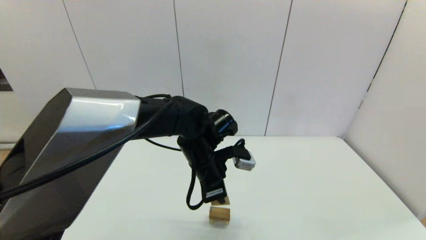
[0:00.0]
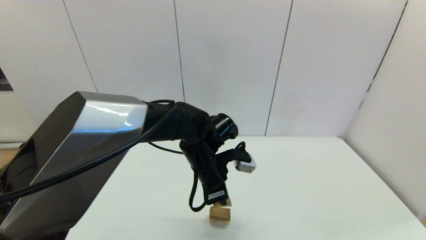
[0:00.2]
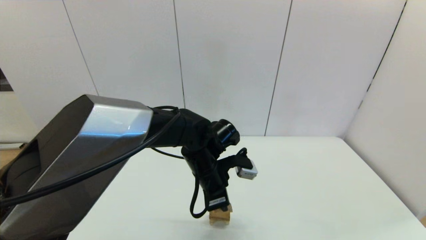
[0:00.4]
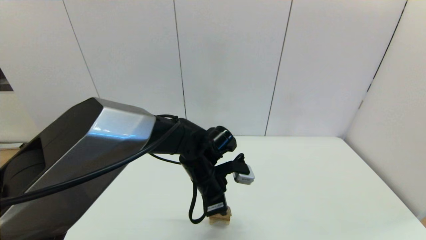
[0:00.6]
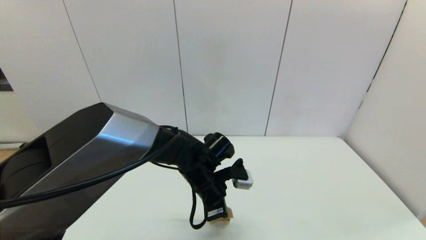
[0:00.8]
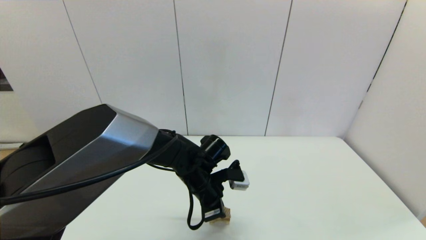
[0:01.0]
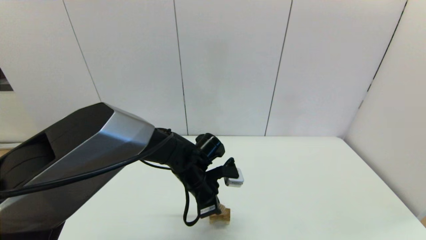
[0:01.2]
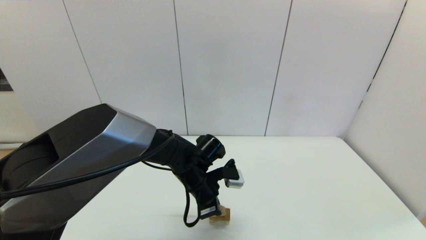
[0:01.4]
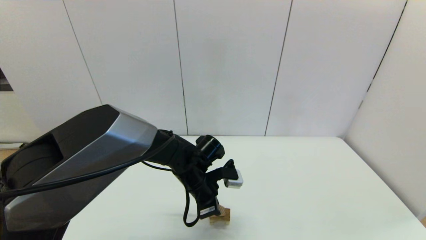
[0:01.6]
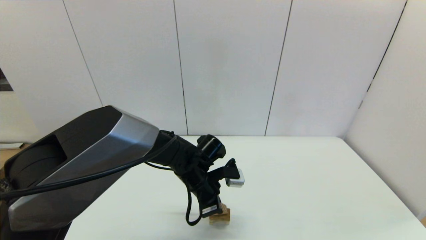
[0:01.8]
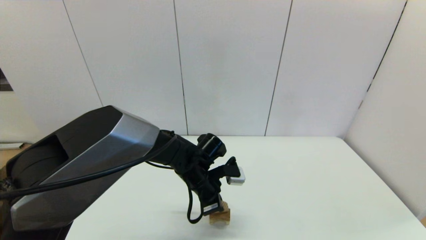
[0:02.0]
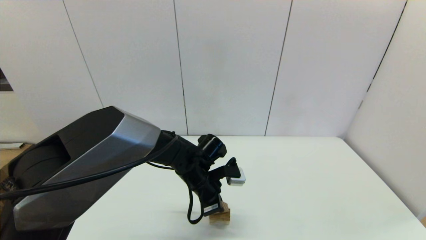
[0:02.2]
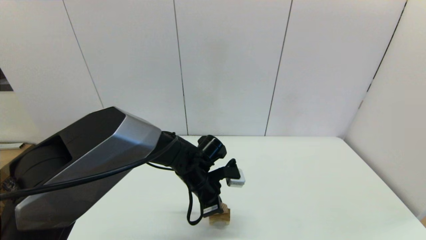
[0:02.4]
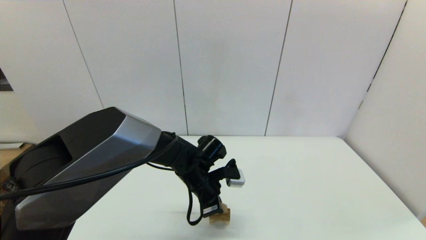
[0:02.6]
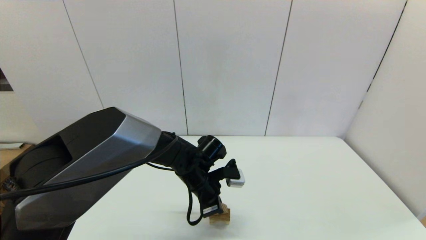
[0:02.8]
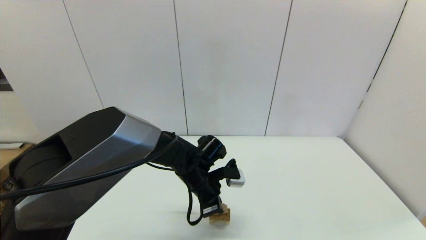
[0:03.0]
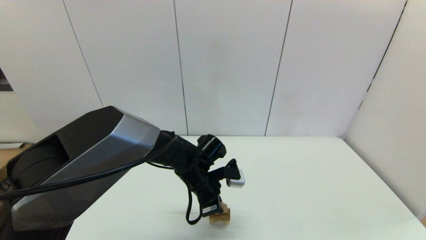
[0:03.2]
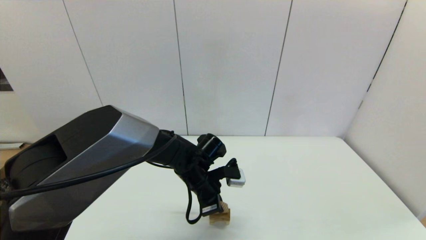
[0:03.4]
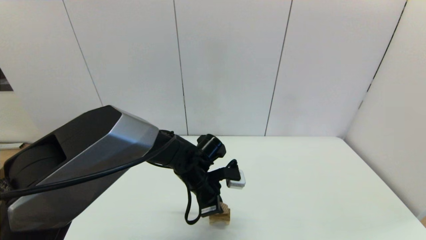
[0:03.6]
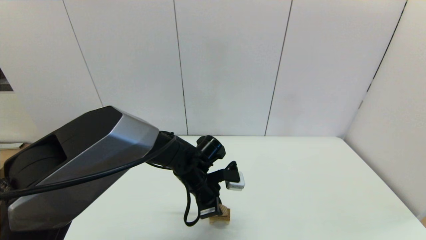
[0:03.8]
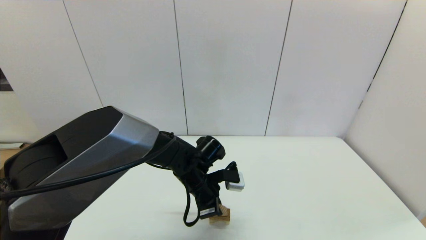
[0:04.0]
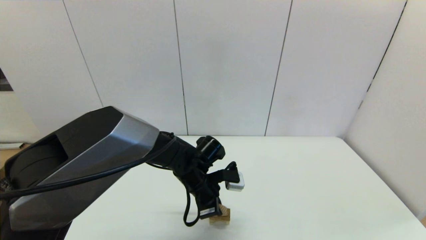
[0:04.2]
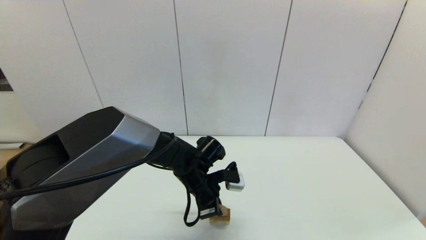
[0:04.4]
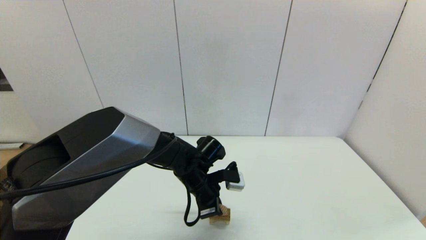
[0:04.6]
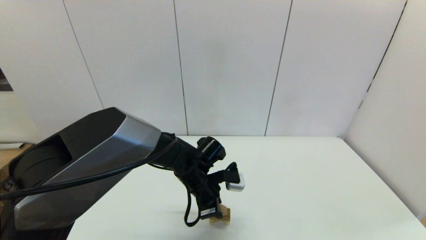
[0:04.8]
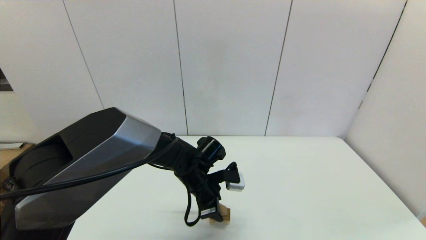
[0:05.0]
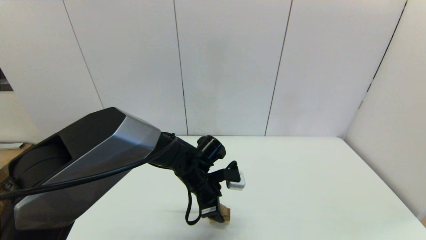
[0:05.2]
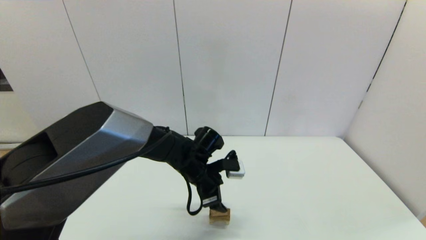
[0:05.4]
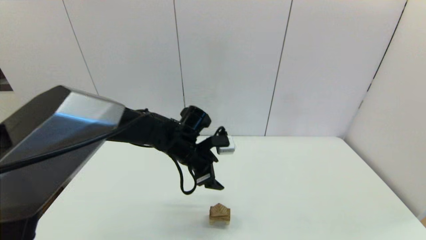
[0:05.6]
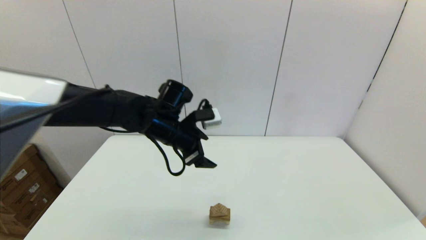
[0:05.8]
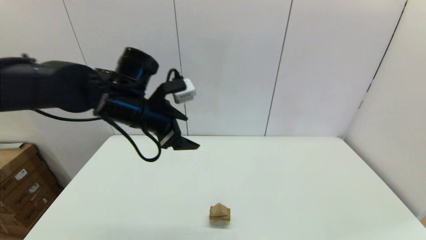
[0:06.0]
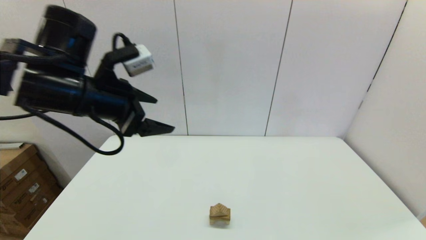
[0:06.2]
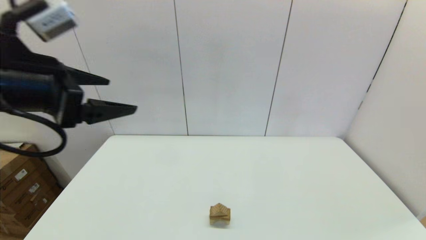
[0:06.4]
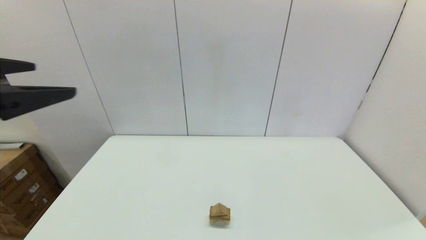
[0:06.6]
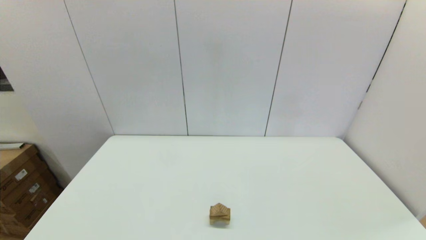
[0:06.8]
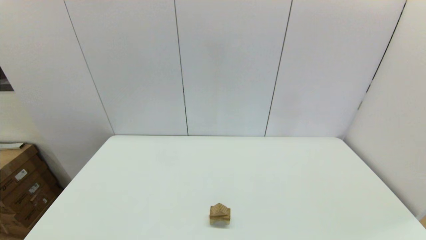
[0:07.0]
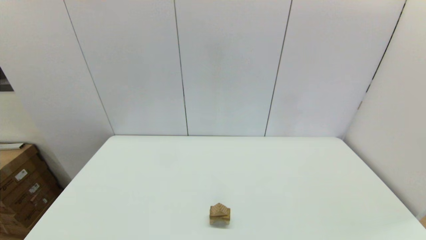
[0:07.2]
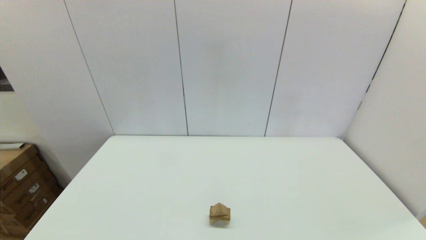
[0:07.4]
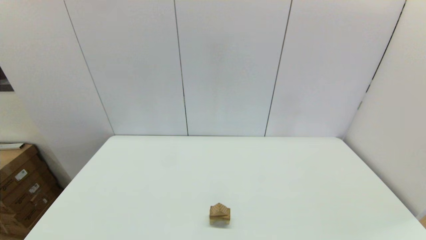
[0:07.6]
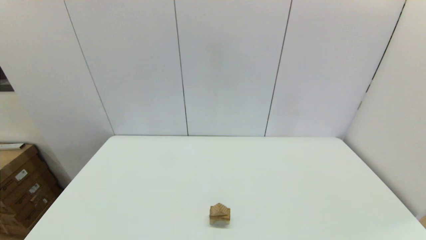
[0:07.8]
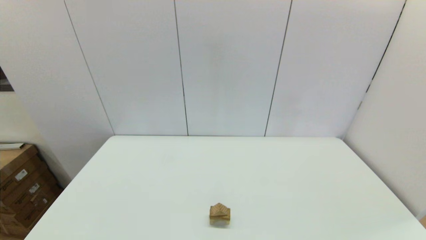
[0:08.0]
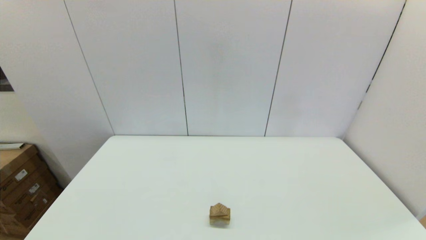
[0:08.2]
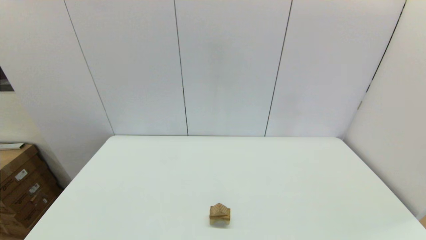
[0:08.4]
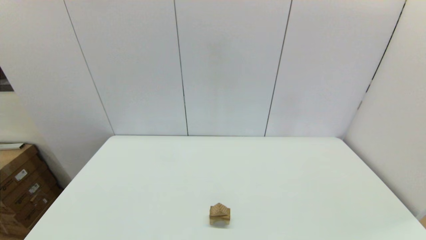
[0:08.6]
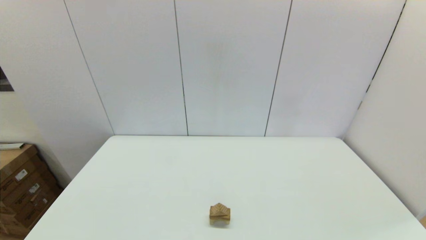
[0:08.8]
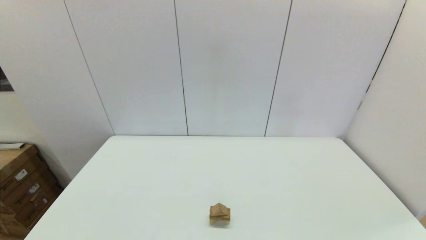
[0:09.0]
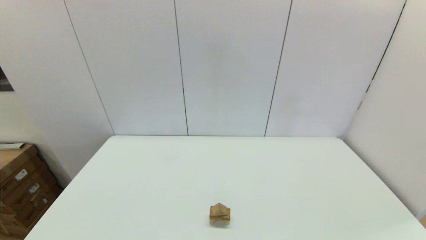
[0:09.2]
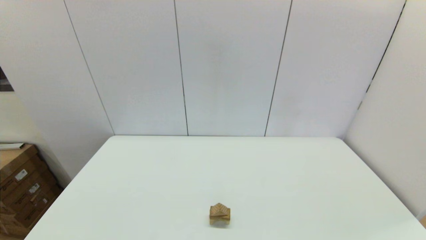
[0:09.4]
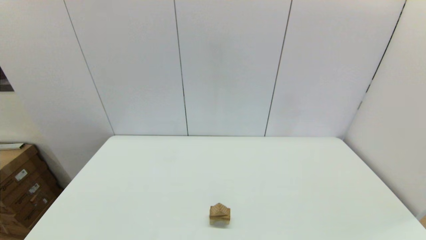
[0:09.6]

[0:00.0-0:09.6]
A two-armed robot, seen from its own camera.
Task of the whole recording: place the arched building blocks in the center of the table, set up the rectangular building blocks, and then set up the triangular building blocks.
0:00.0 to 0:01.6: The left gripper heads downward, covering roughly 10 cm.
0:01.6 to 0:03.2: The two grippers keep their place.
0:03.2 to 0:04.8: Neither gripper changes place.
0:04.8 to 0:06.4: The left gripper is displaced upward, to the left and backward by approximately 40 cm, and opens up.
0:06.4 to 0:08.0: The left gripper travels backward and downward by about 30 cm.

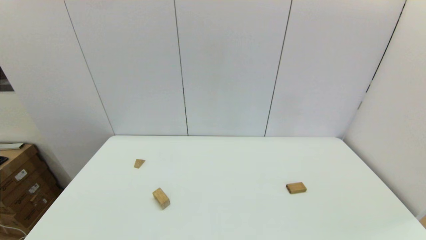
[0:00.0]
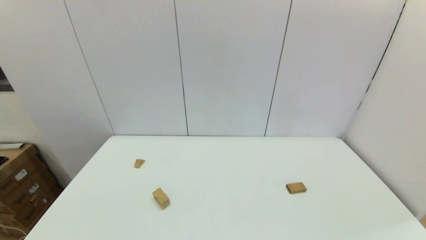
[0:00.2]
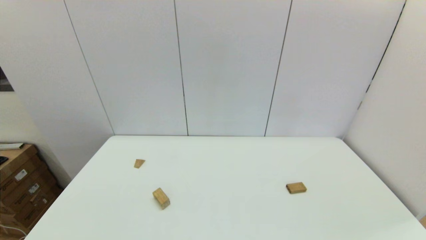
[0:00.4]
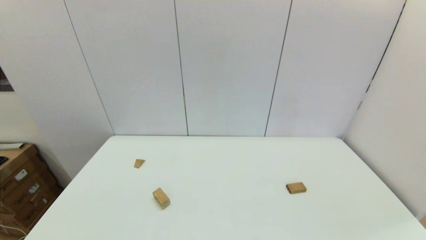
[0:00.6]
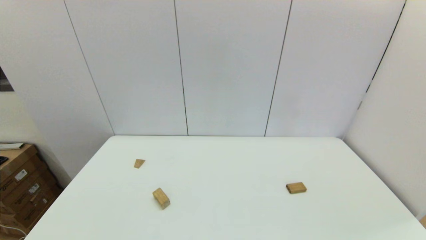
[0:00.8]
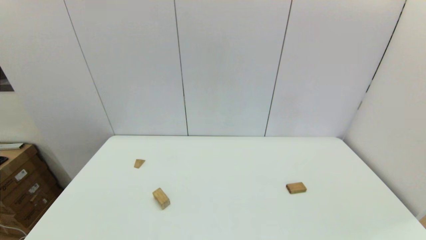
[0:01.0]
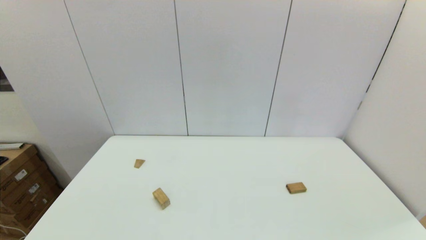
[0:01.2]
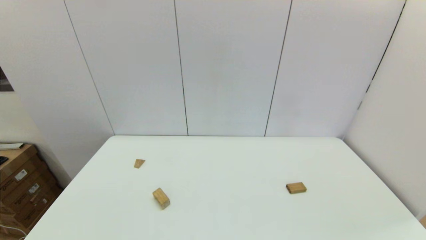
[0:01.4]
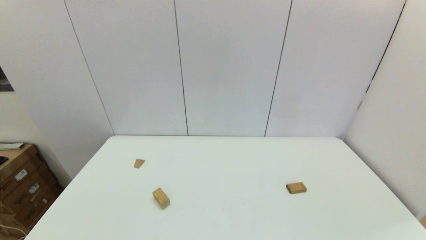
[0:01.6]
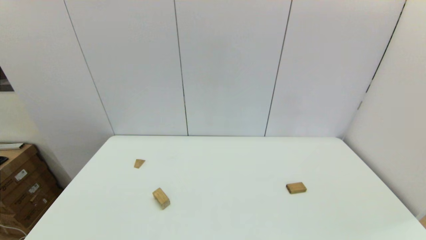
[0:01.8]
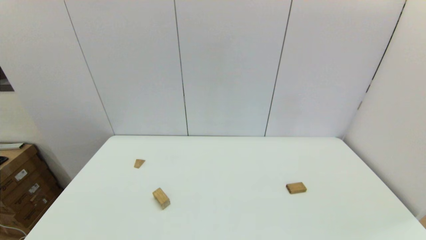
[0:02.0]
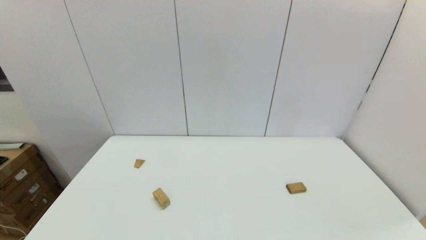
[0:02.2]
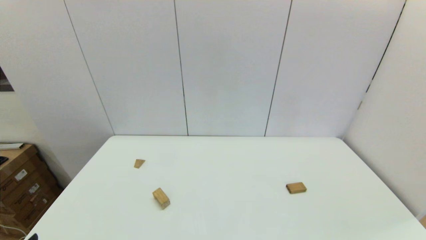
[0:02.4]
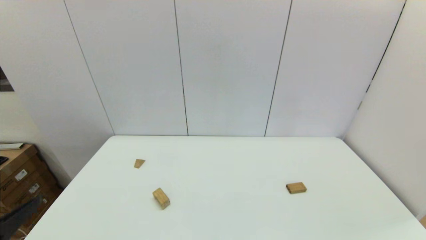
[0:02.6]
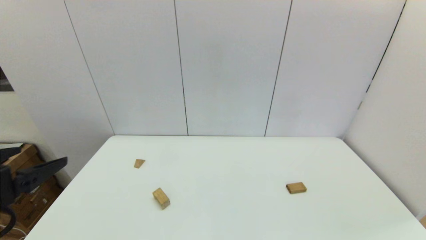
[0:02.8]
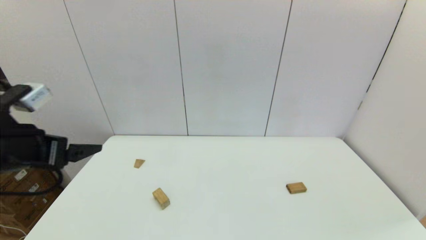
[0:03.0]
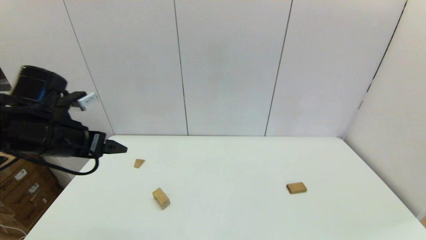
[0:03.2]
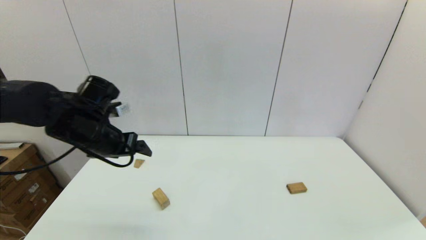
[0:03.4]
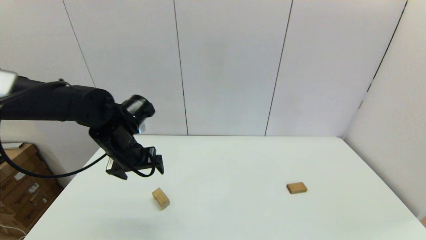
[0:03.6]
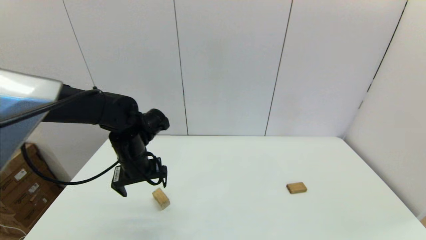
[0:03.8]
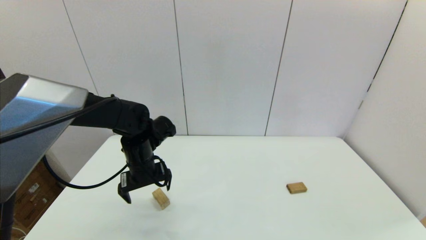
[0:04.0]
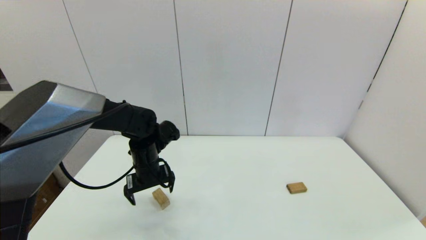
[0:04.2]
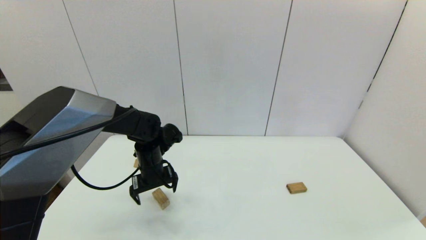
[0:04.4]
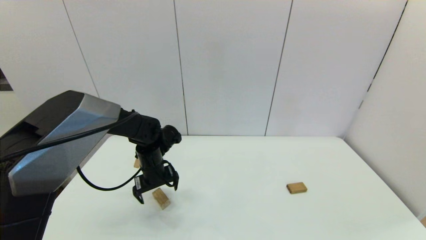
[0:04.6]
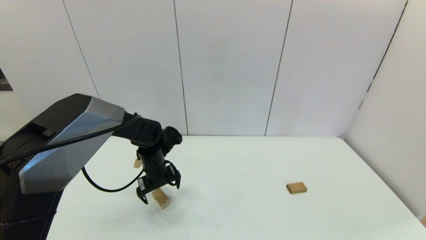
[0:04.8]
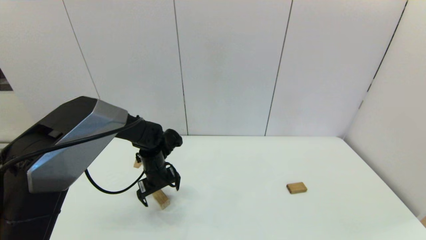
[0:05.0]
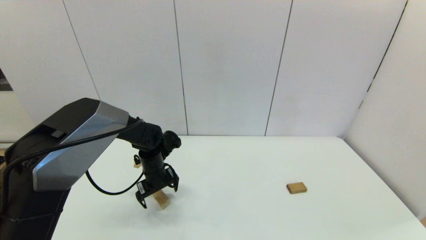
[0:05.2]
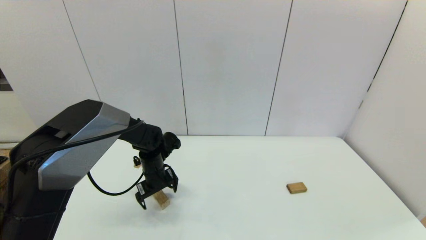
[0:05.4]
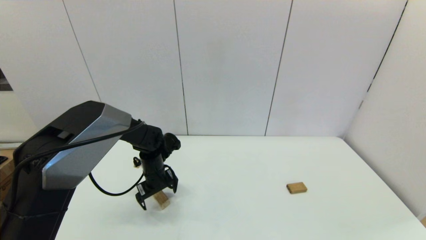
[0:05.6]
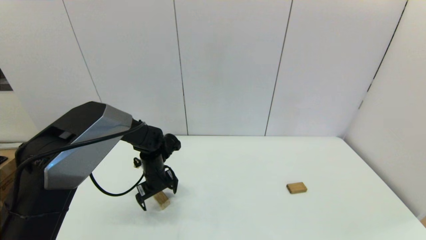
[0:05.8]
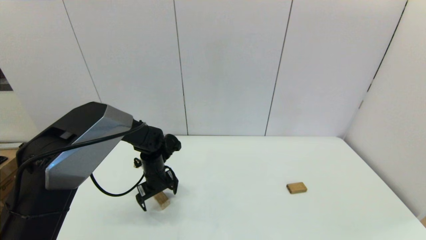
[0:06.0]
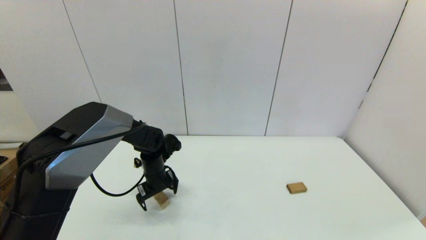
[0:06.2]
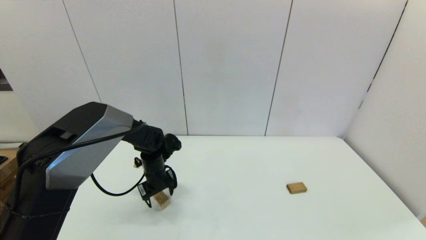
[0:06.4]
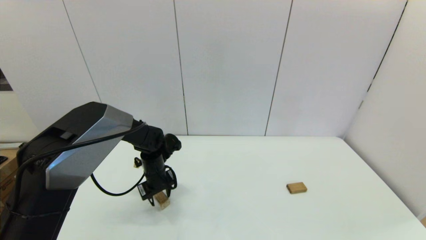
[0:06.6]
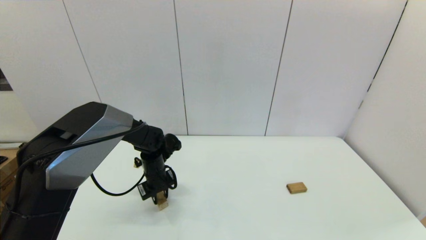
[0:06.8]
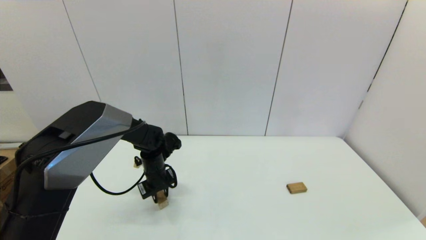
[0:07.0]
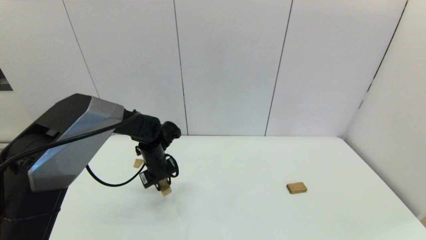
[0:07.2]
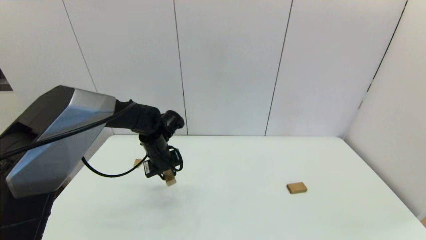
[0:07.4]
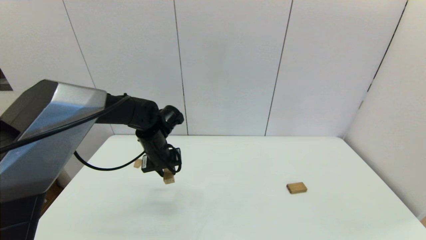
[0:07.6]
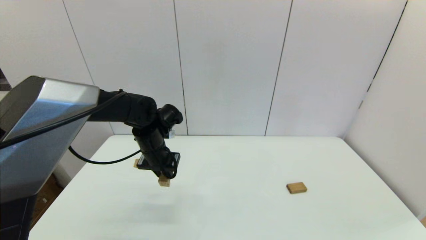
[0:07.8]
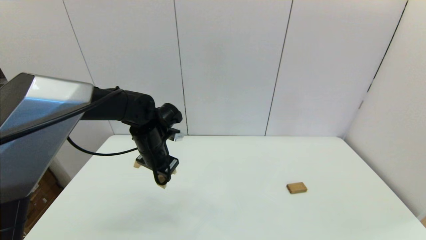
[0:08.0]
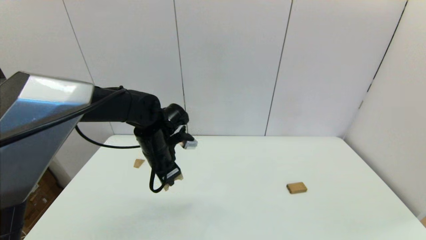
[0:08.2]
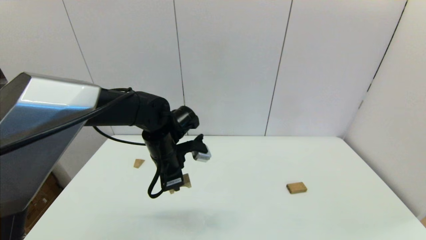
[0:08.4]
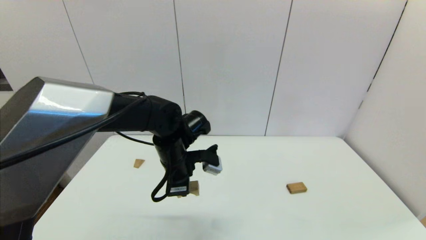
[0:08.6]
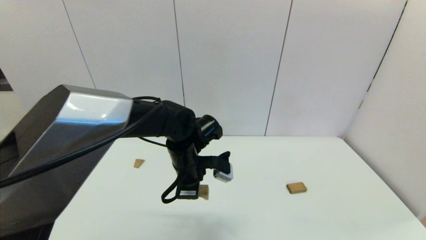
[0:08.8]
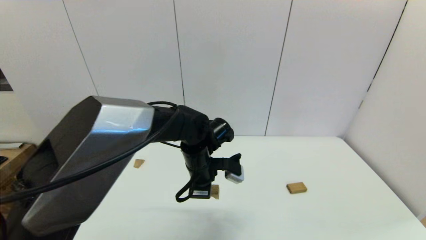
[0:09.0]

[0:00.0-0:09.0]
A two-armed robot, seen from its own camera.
Task of the whole recording: place the arched building blocks in the center of the table, set up the rectangular building blocks, and then set up the triangular building blocks.
Step, 0:02.4 to 0:06.6: Grasp the arch-shaped block with the left gripper.
0:00.0 to 0:01.6: Both grippers stay put.
0:01.6 to 0:03.0: The left gripper shifts roughly 25 cm forward and upward.
0:03.0 to 0:04.4: The left gripper moves downward, forward and to the right, some 25 cm.
0:04.4 to 0:06.0: The left gripper goes roughly 5 cm downward.
0:06.0 to 0:07.6: The left gripper travels upward by approximately 10 cm, and closes its fingers.
0:07.6 to 0:09.0: The left gripper shifts roughly 10 cm to the right.
